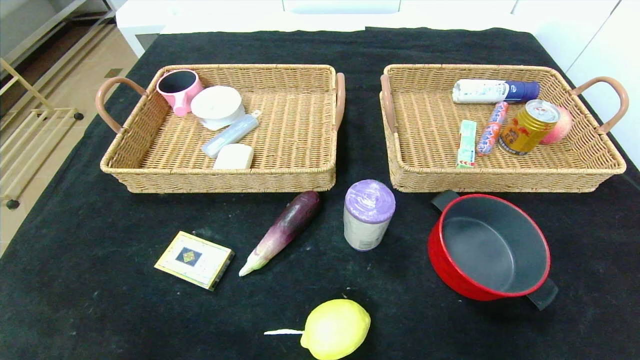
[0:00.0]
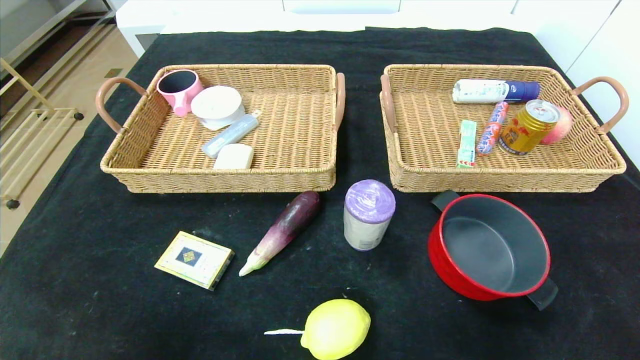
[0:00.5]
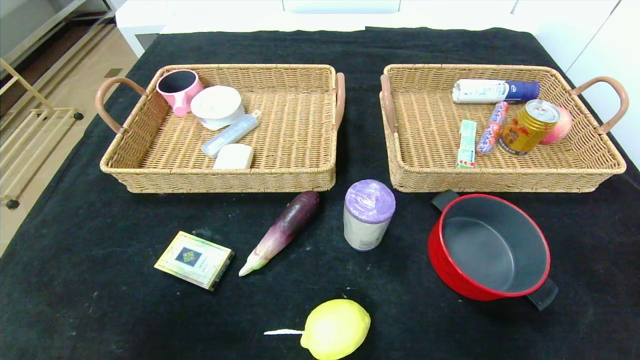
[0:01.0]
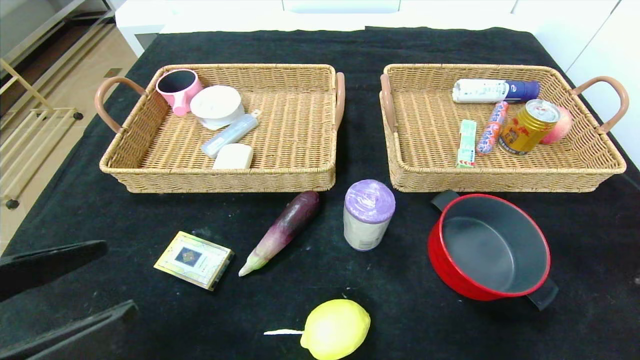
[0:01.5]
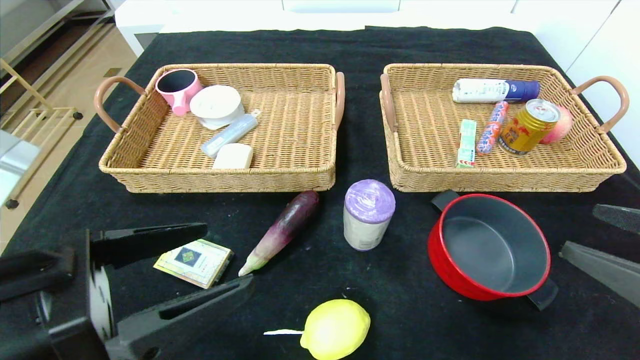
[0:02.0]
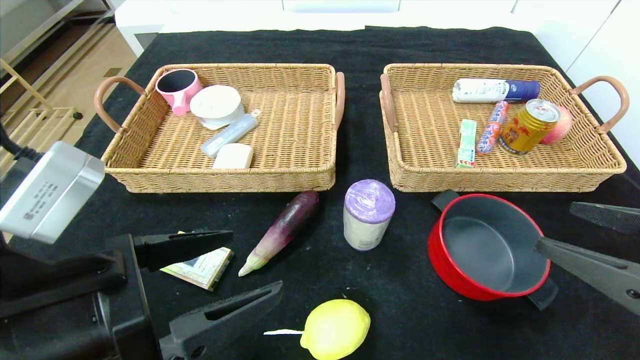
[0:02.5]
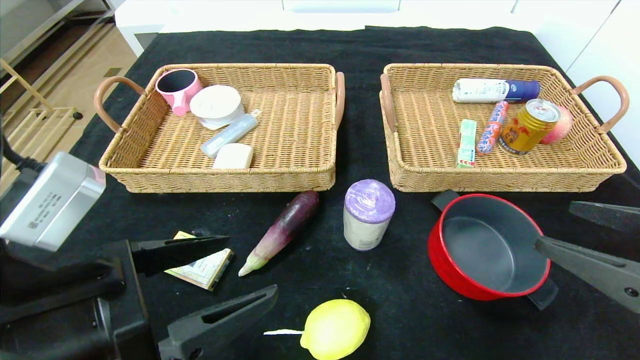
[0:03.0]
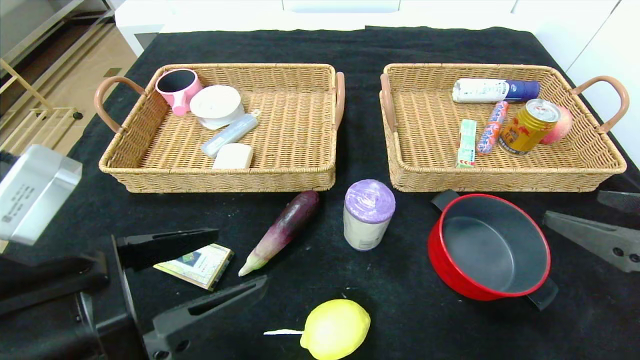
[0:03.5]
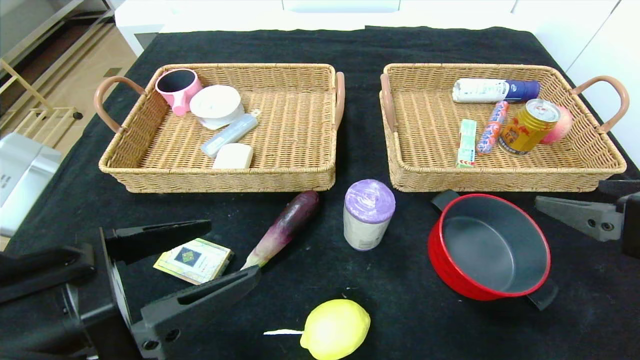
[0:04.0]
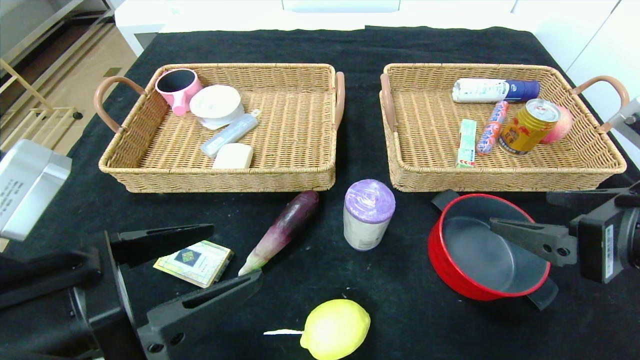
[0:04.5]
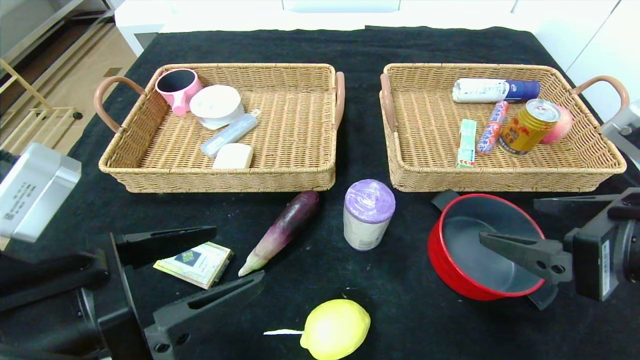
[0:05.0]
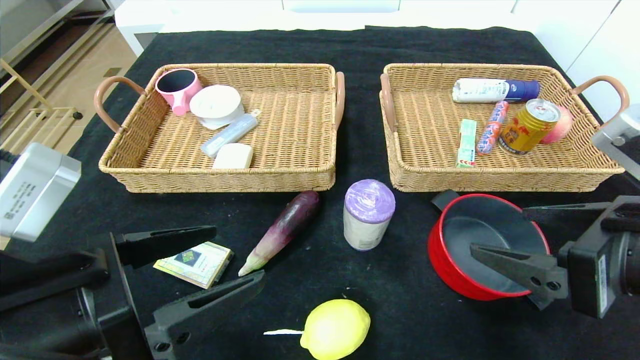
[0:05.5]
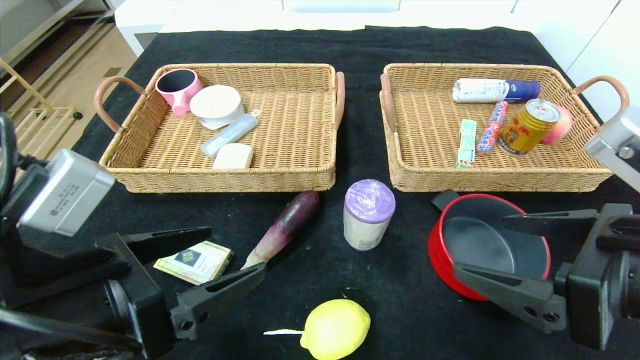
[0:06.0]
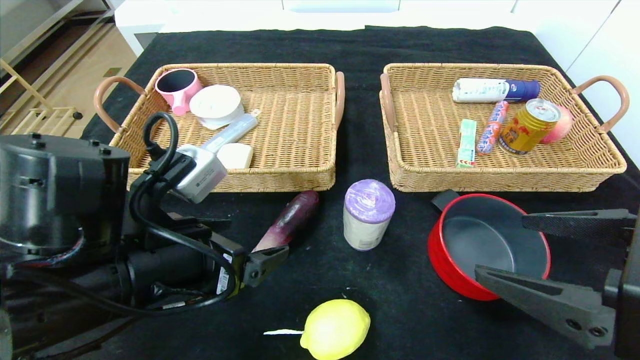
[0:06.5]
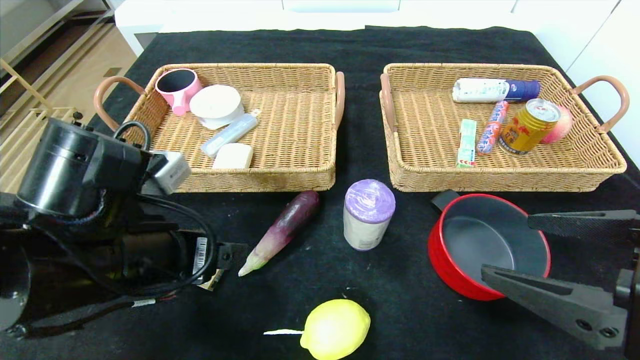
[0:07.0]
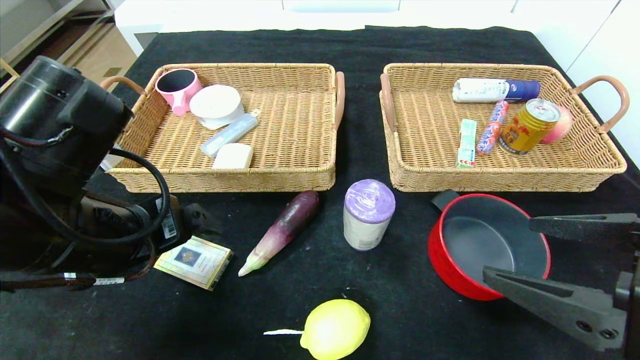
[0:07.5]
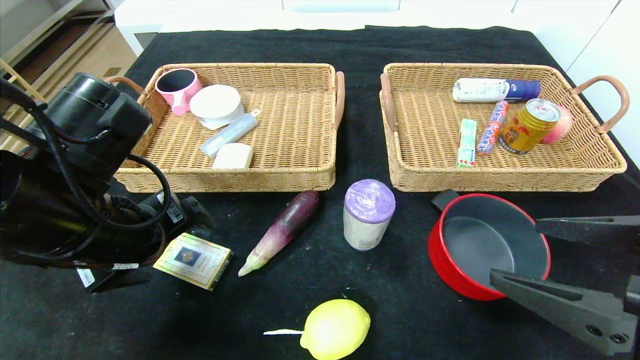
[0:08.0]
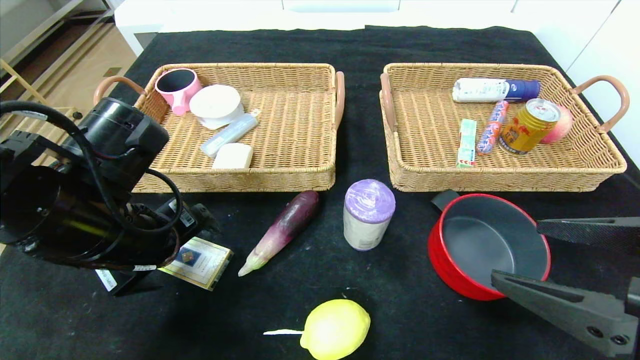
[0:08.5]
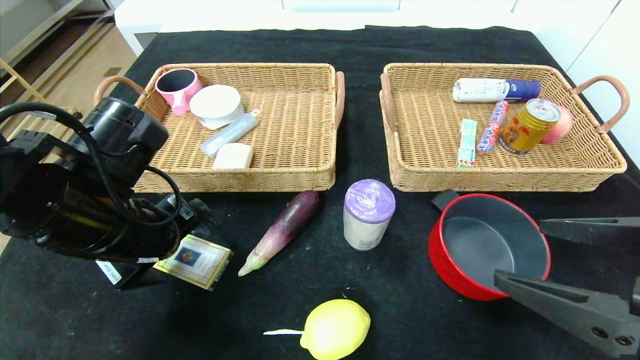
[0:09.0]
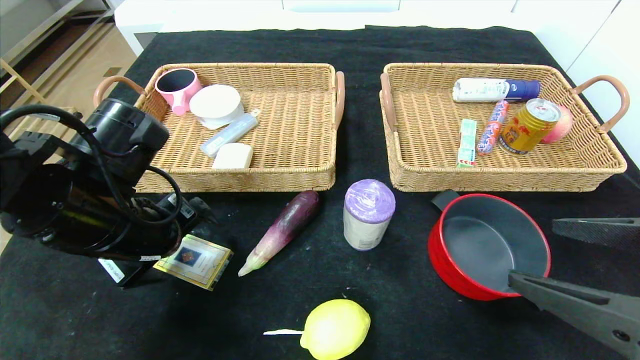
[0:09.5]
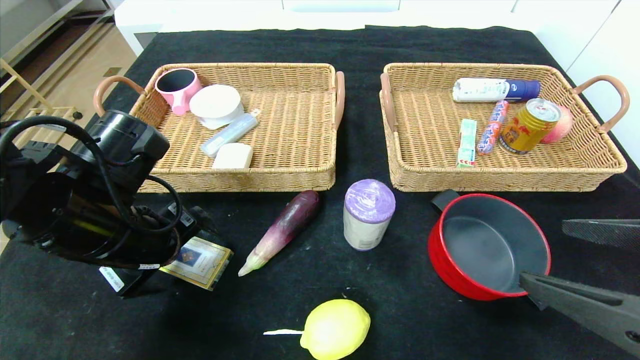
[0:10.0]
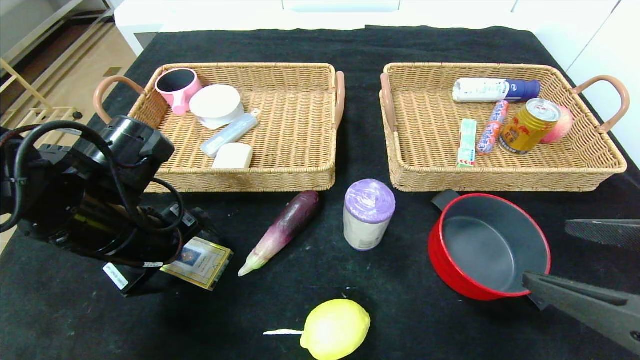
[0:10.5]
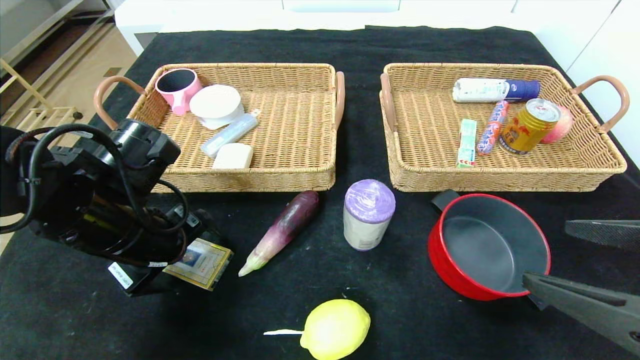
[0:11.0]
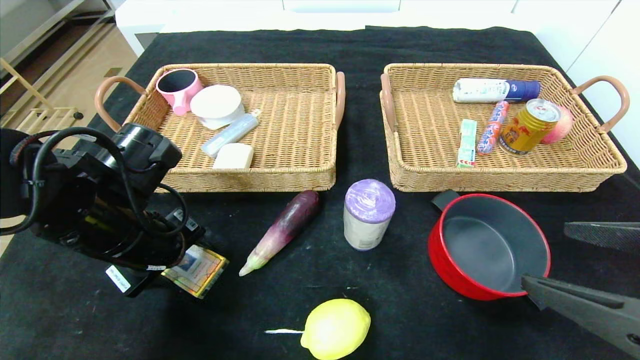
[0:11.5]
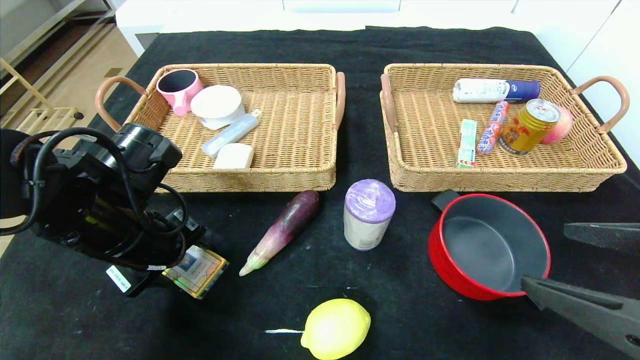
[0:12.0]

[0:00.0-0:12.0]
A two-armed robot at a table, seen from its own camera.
0.0 to 2.0 s: The left gripper moves upward, forward and to the right, about 25 cm, while the right gripper moves upward and forward, approximately 20 cm.
2.0 to 4.0 s: The right gripper ends up approximately 5 cm from where it was.
4.0 to 6.0 s: The right gripper moves to the left, approximately 5 cm.
6.0 to 8.0 s: The left gripper shifts some 10 cm forward.
8.0 to 10.0 s: The grippers make only small movements.
10.0 to 12.0 s: The left gripper closes.

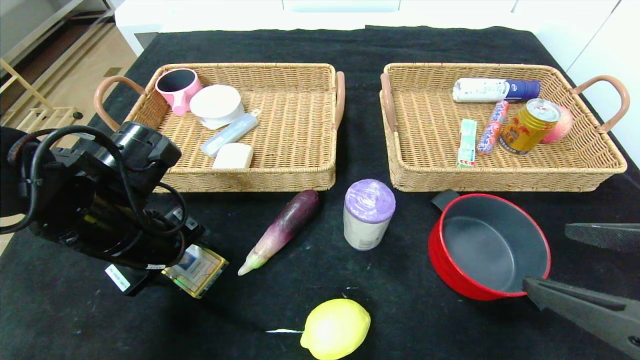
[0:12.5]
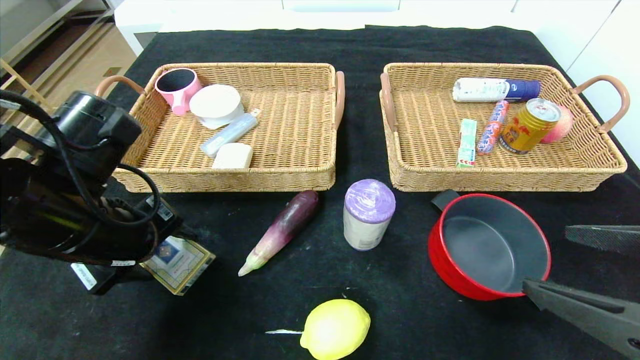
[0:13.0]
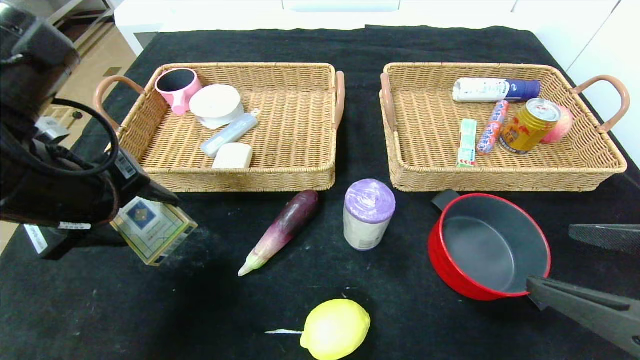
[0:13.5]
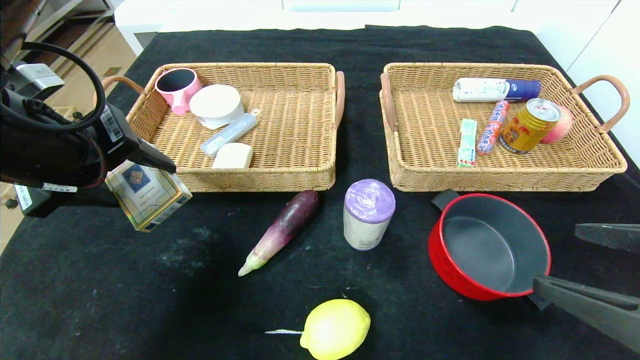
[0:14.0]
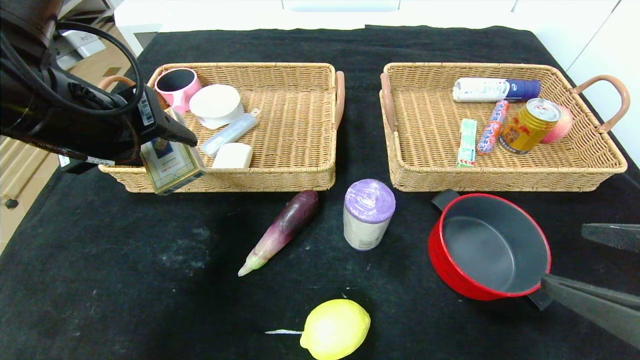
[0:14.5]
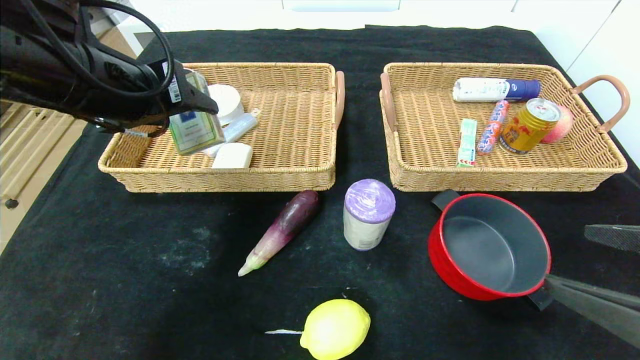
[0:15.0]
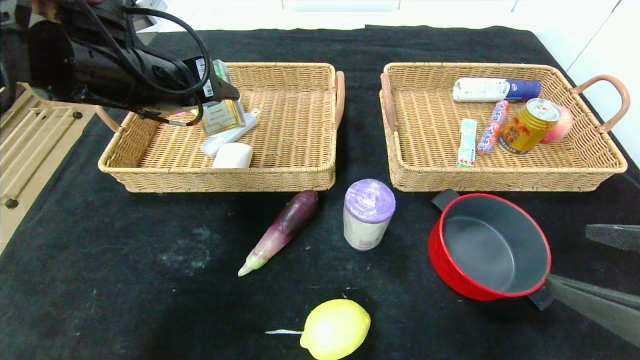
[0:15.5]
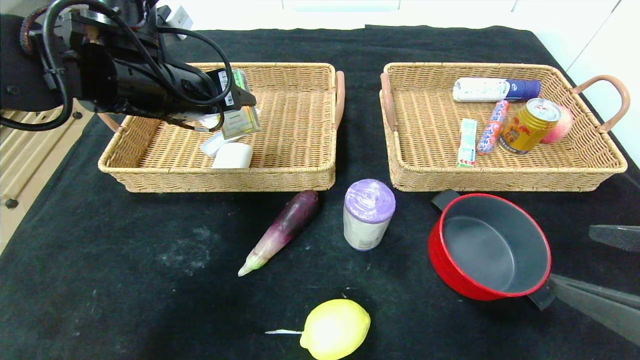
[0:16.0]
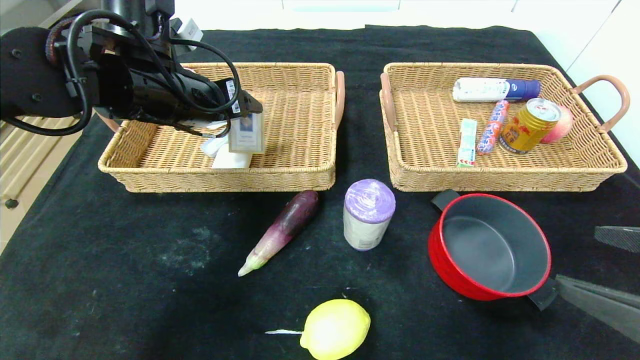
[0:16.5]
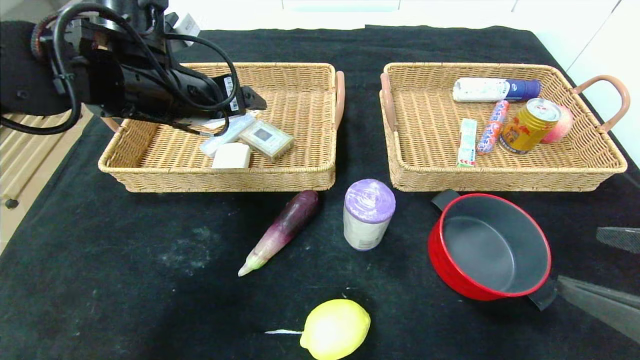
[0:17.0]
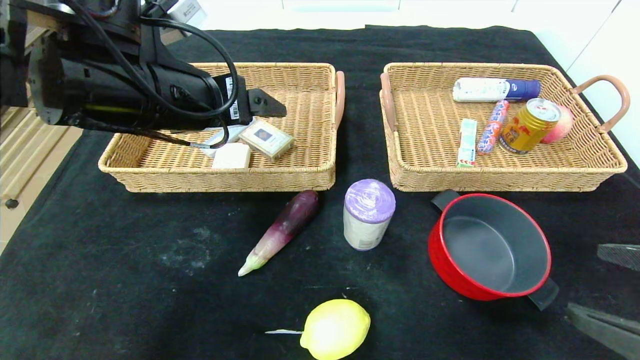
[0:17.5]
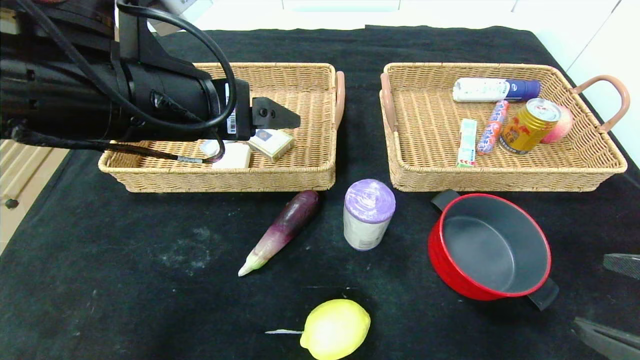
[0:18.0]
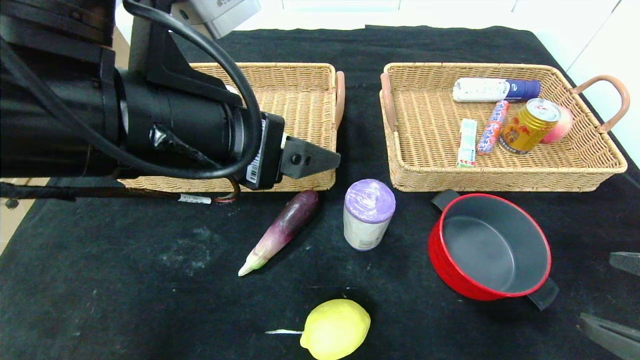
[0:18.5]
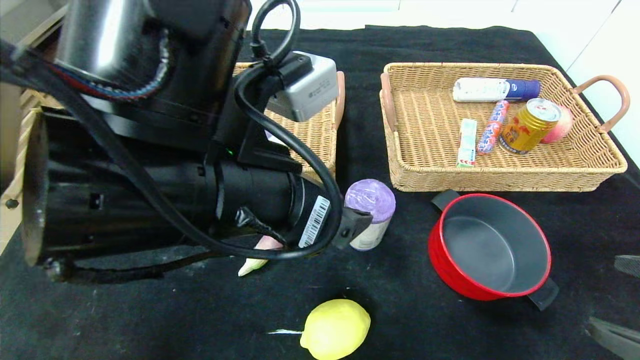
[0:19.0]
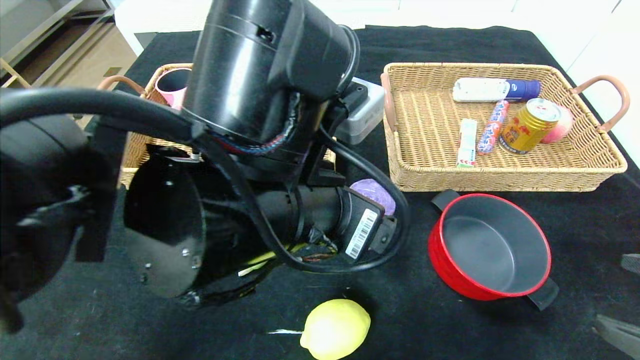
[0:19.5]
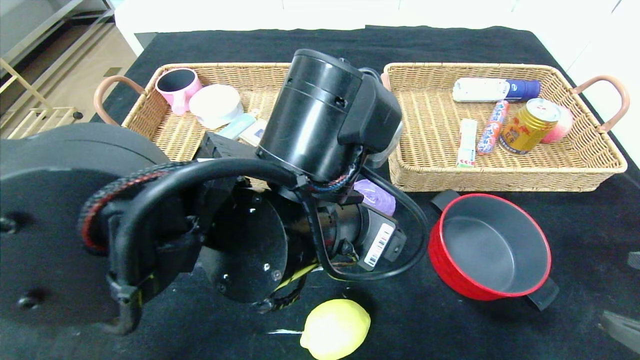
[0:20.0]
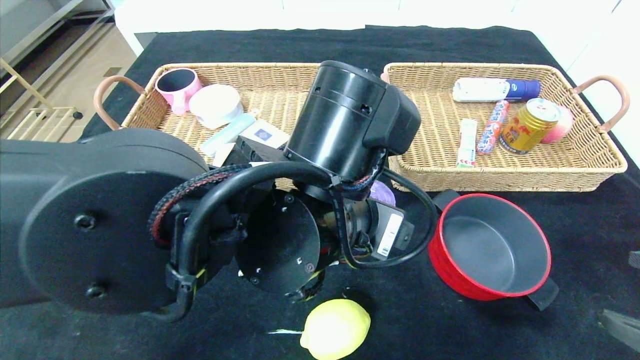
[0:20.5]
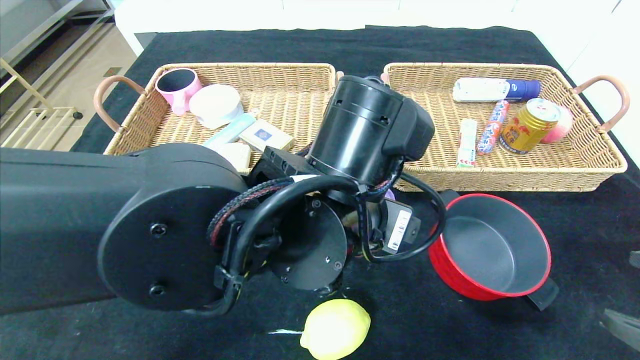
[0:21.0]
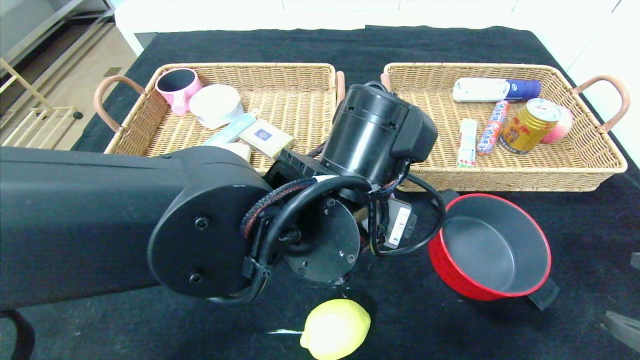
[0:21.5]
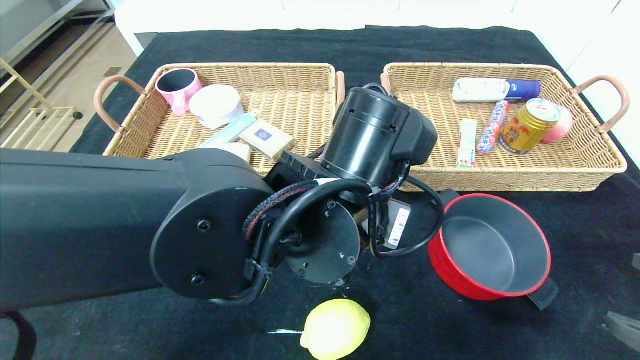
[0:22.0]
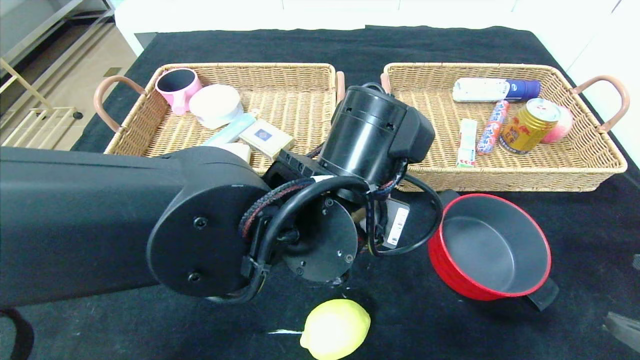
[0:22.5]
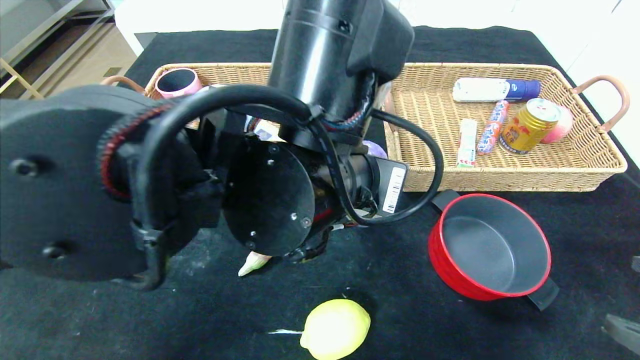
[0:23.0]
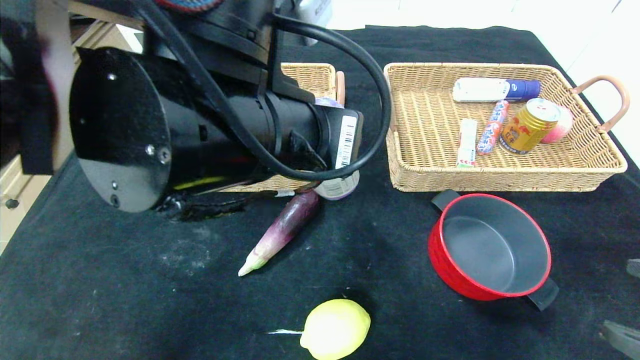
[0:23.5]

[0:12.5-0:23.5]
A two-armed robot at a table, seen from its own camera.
Step, 12.5 to 19.0 s: Pick up the playing cards and put it in the left basket.
12.5 to 14.5 s: The left gripper travels upward by roughly 15 cm.
14.5 to 16.0 s: The left gripper moves forward, about 10 cm.
16.0 to 18.0 s: The left gripper goes approximately 10 cm backward, and opens up.
18.0 to 20.0 s: The left gripper shifts some 15 cm to the right and downward.
21.5 to 23.5 s: The left gripper goes roughly 10 cm upward and to the left, and closes.
